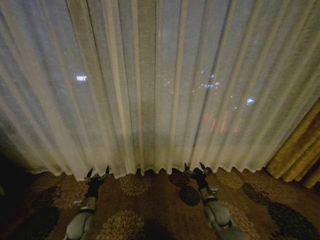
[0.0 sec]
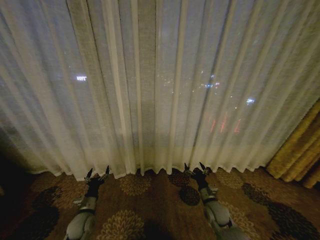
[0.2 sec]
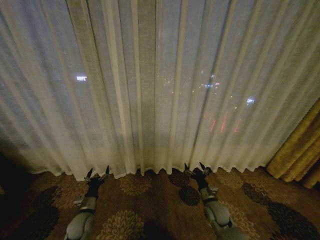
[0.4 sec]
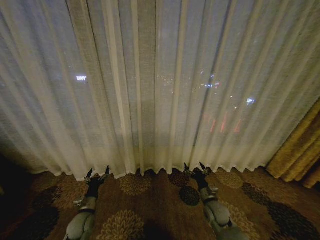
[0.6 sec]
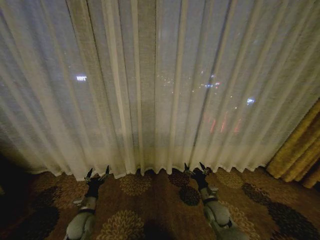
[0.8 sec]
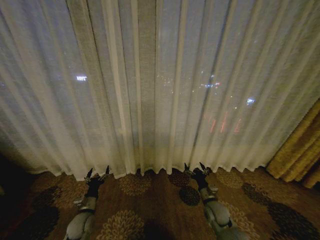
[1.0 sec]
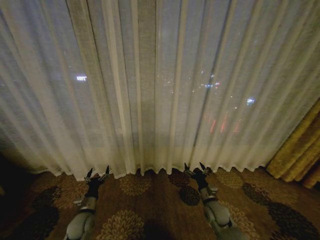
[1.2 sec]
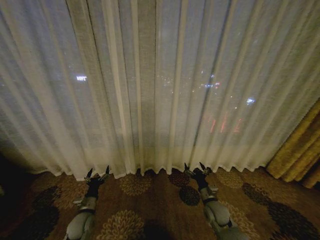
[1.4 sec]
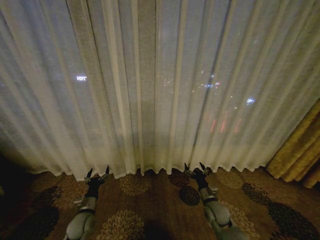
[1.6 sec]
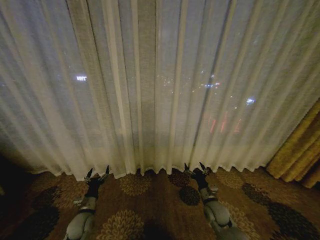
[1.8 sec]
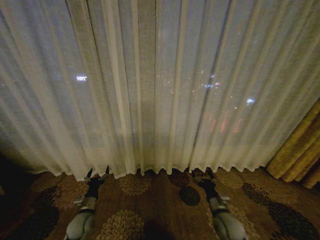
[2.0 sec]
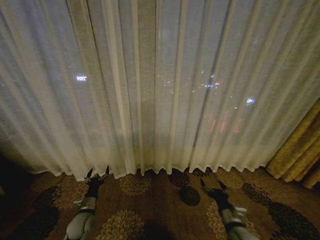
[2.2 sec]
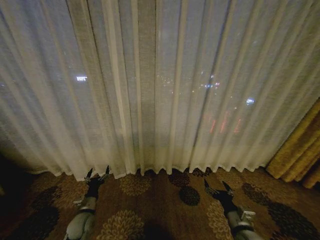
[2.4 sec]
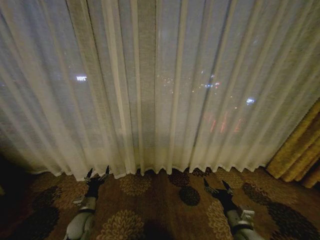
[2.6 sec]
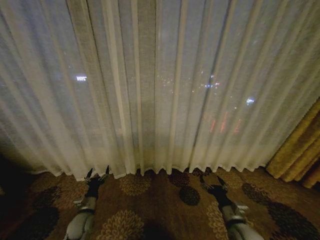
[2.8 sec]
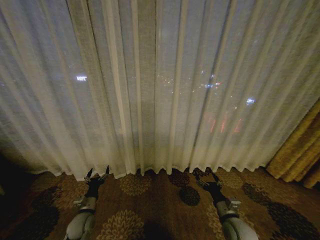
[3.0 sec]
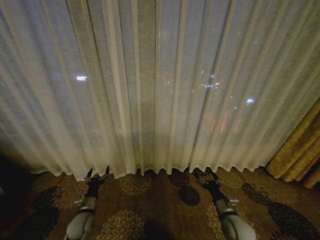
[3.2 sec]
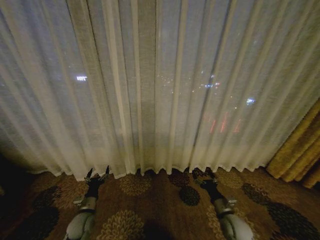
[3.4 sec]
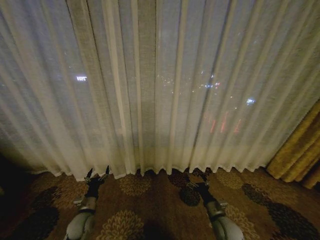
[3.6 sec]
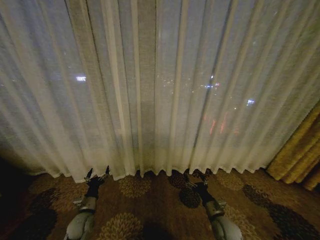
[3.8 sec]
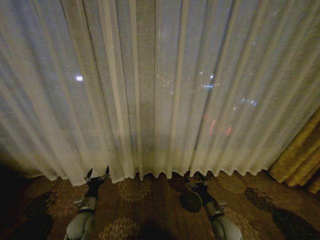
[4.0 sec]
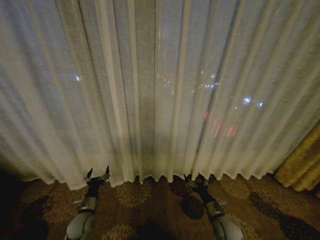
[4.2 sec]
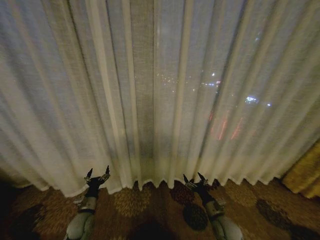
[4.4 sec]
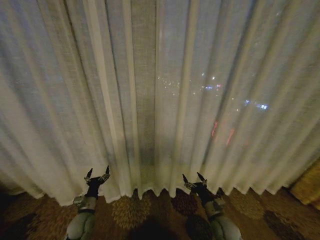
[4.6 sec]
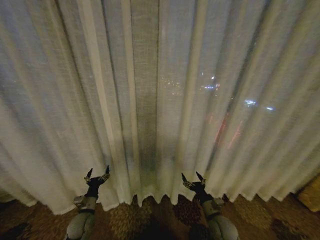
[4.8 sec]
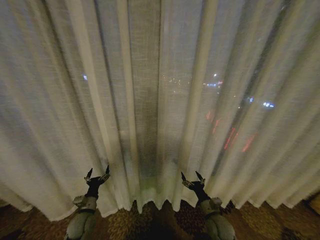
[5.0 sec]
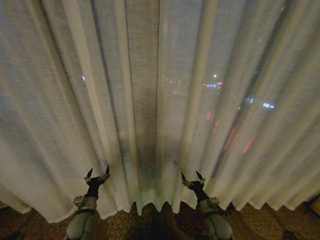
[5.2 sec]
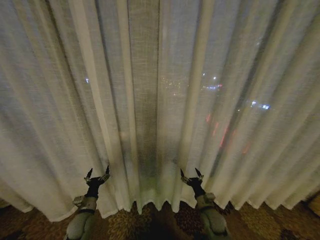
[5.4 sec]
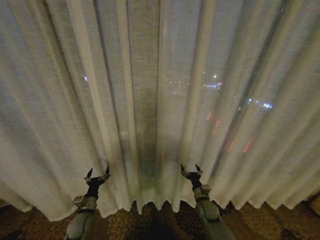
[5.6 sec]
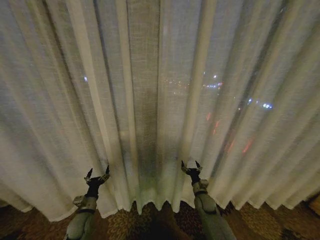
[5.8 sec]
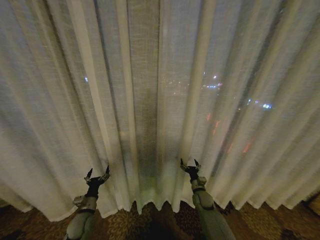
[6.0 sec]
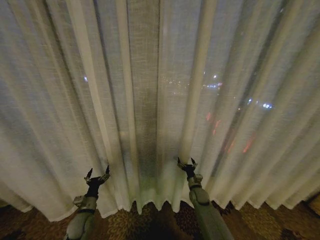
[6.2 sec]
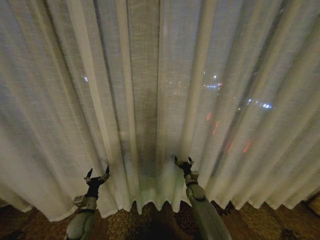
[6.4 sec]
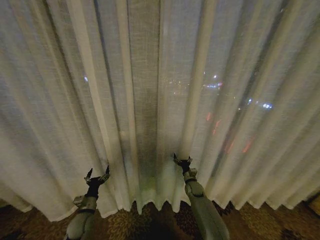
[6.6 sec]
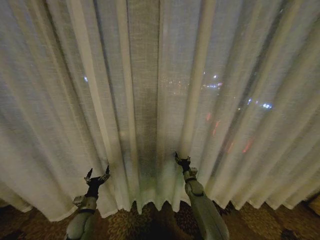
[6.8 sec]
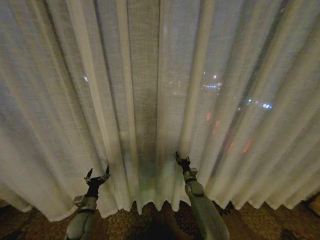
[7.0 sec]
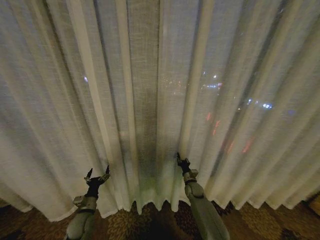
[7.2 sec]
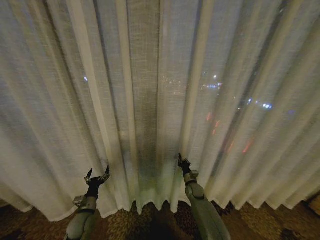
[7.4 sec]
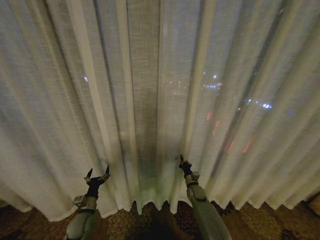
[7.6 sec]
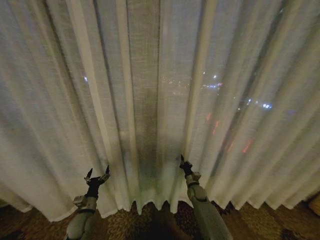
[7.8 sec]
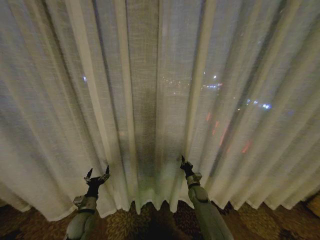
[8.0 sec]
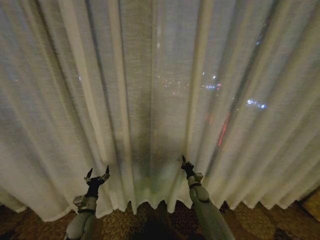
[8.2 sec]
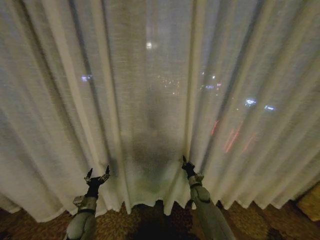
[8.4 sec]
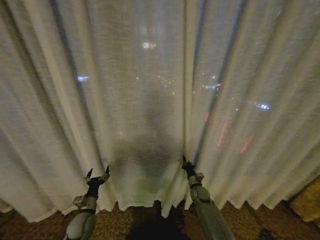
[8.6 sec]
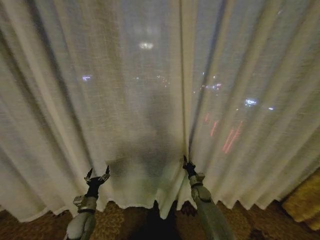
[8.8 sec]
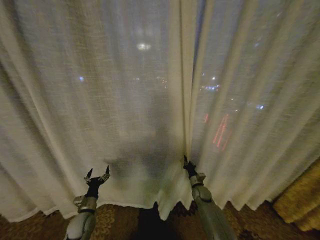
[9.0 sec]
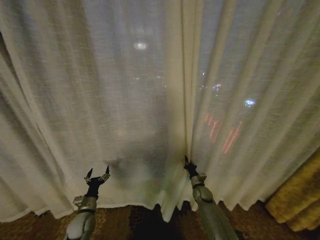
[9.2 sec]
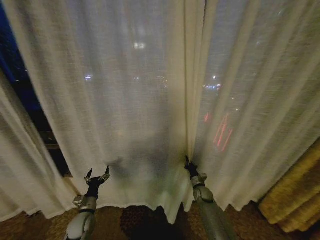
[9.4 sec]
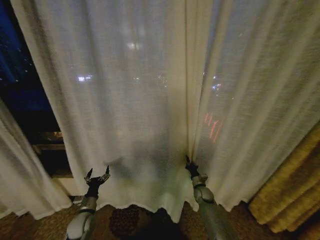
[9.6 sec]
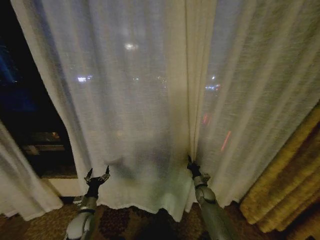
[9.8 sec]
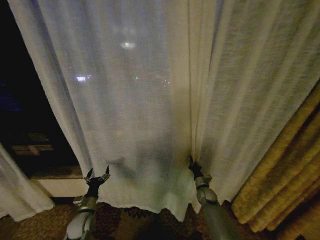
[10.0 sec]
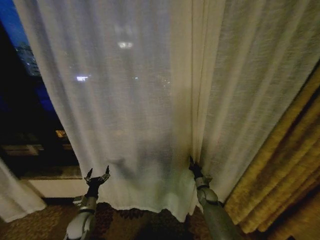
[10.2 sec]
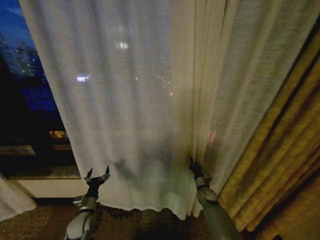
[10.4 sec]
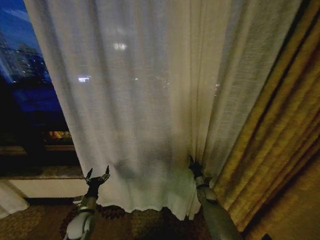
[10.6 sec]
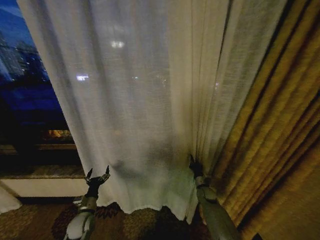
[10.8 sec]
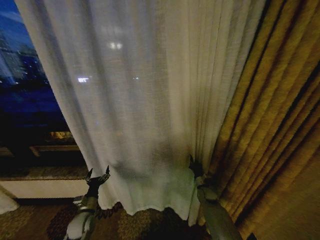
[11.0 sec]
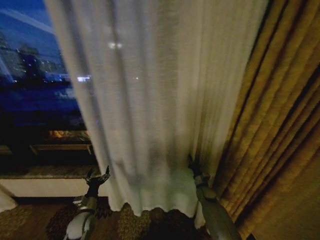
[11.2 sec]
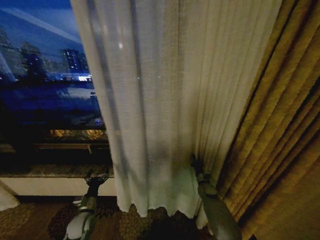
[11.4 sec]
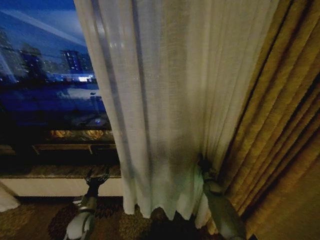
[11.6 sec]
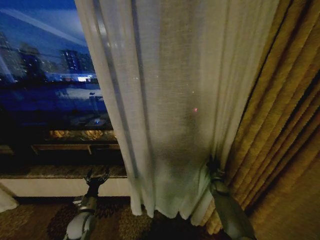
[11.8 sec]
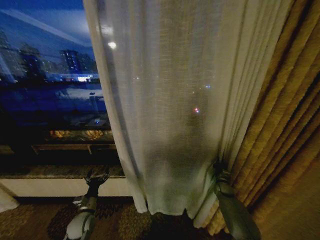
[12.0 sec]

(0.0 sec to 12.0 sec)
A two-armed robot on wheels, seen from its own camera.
Task of the whole recording: Open the curtains by pulling them apart, changing their state from closed to fully open.
1.6 sec - 3.0 sec: The right gripper travels backward by about 10 cm.
3.0 sec - 4.4 sec: The right gripper travels downward by some 5 cm.
4.4 sec - 6.0 sec: The right gripper travels forward by approximately 15 cm.
6.0 sec - 7.6 sec: The right gripper closes up.
7.6 sec - 9.0 sec: The grippers make only small movements.
10.4 sec - 12.0 sec: The right gripper goes approximately 10 cm to the right.

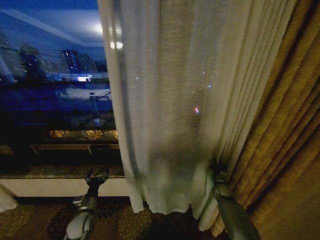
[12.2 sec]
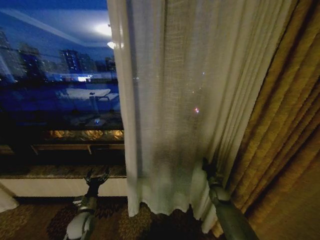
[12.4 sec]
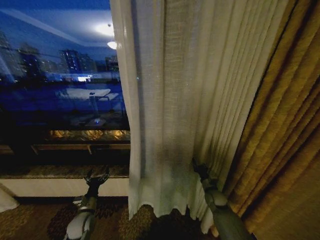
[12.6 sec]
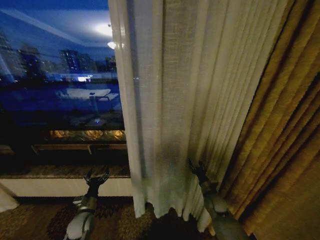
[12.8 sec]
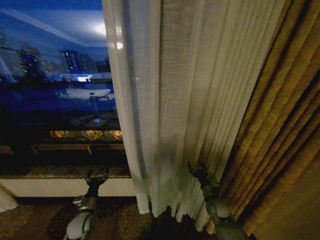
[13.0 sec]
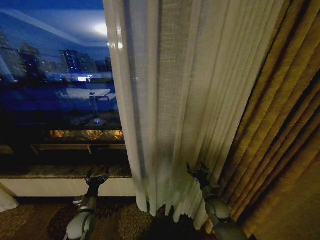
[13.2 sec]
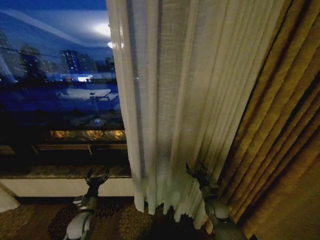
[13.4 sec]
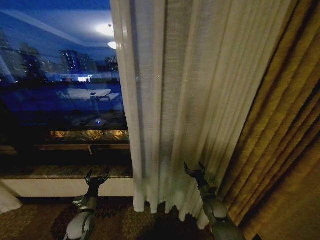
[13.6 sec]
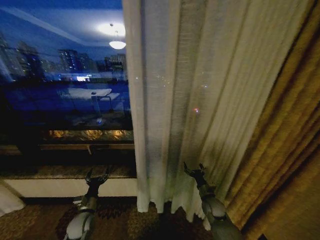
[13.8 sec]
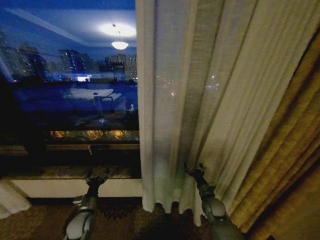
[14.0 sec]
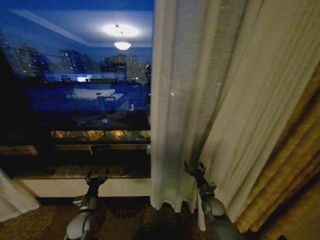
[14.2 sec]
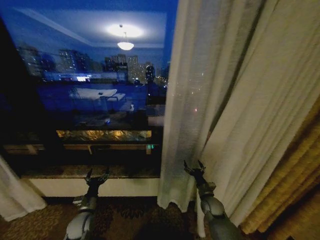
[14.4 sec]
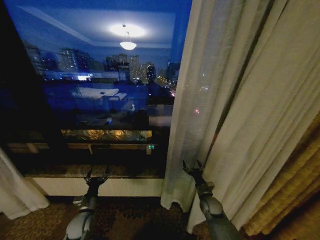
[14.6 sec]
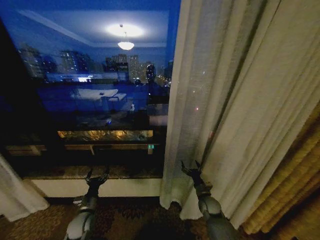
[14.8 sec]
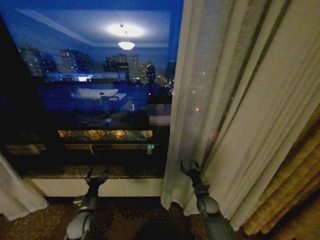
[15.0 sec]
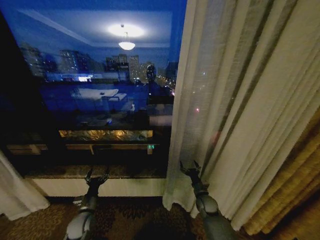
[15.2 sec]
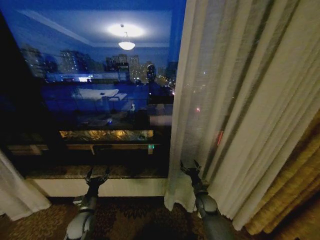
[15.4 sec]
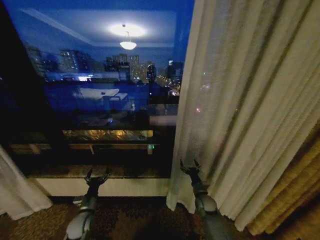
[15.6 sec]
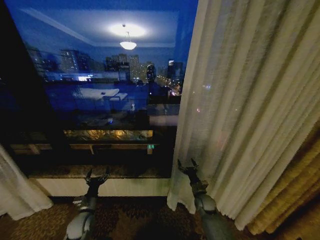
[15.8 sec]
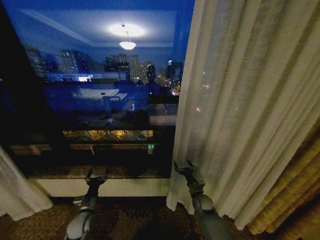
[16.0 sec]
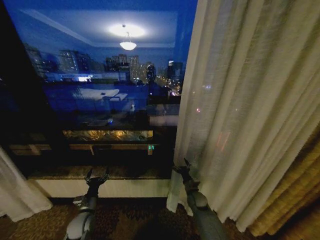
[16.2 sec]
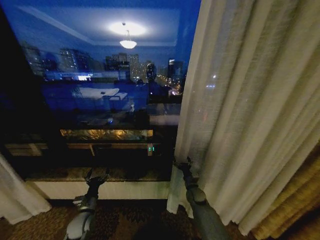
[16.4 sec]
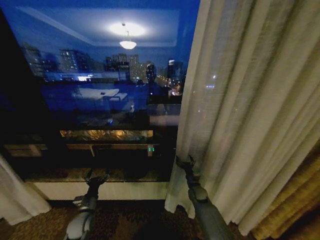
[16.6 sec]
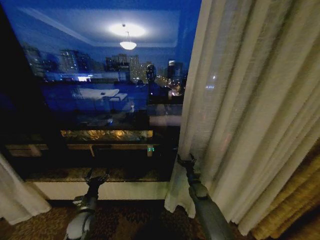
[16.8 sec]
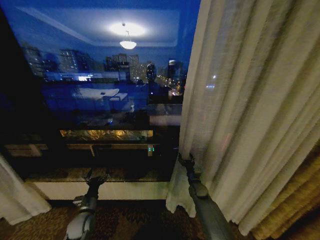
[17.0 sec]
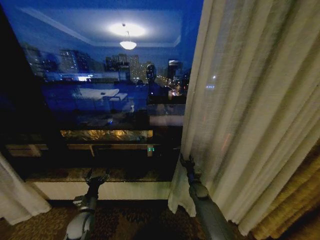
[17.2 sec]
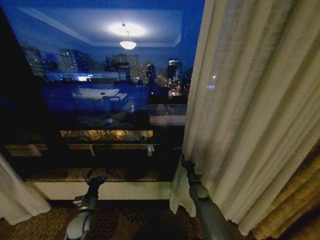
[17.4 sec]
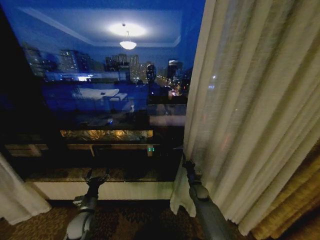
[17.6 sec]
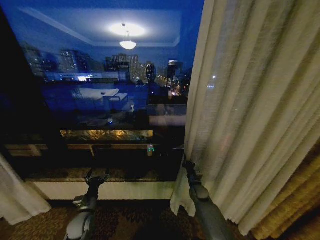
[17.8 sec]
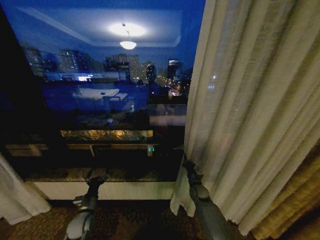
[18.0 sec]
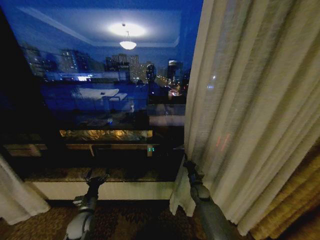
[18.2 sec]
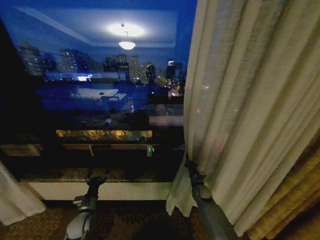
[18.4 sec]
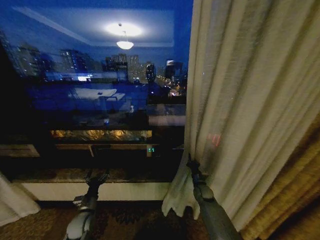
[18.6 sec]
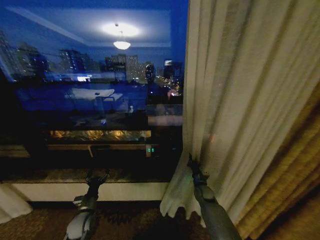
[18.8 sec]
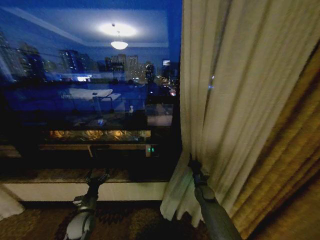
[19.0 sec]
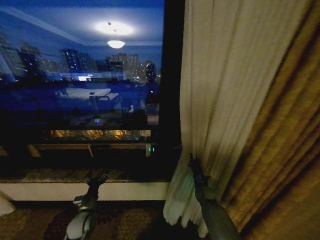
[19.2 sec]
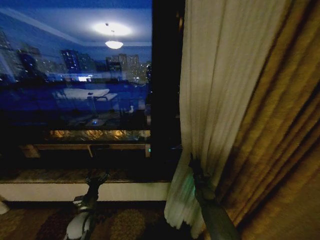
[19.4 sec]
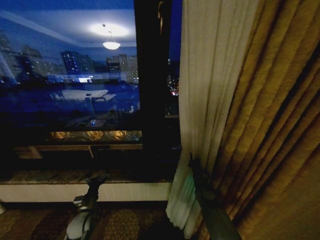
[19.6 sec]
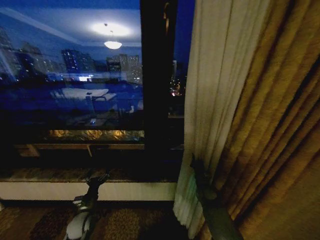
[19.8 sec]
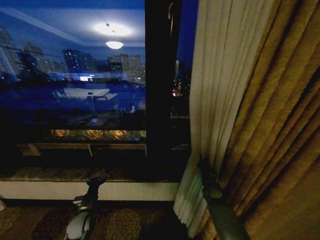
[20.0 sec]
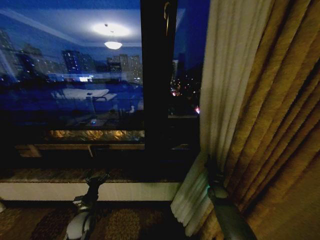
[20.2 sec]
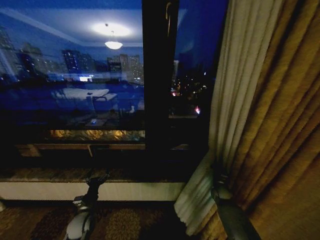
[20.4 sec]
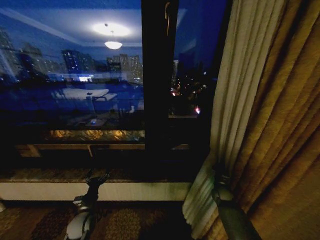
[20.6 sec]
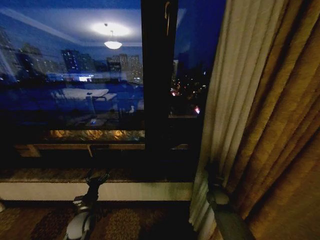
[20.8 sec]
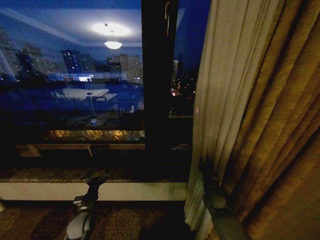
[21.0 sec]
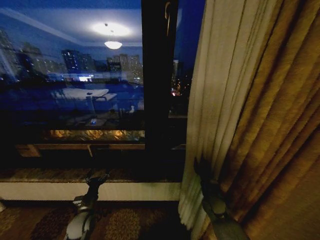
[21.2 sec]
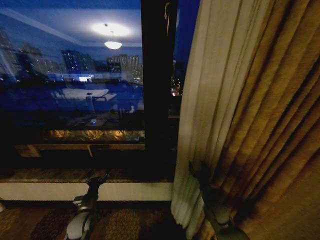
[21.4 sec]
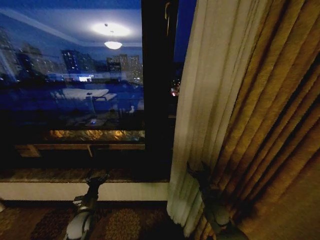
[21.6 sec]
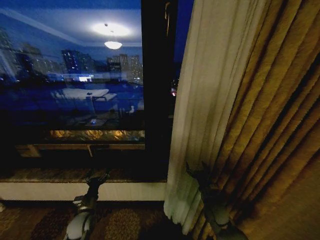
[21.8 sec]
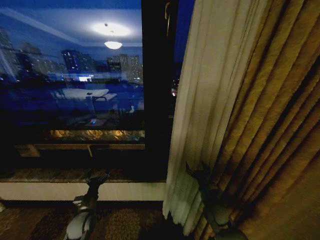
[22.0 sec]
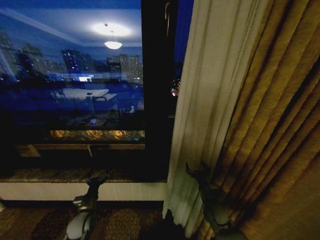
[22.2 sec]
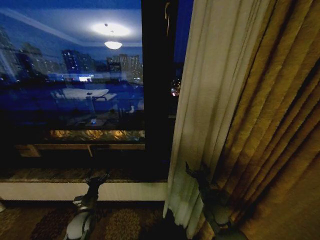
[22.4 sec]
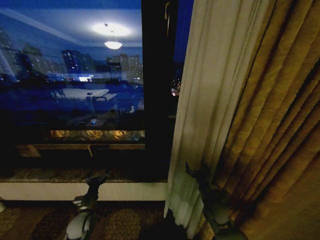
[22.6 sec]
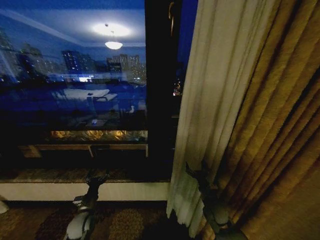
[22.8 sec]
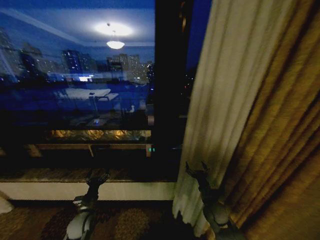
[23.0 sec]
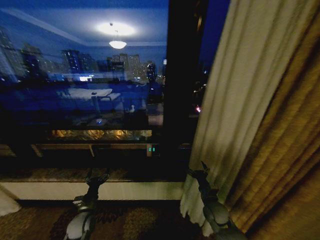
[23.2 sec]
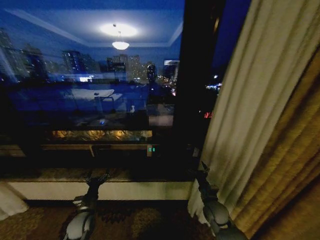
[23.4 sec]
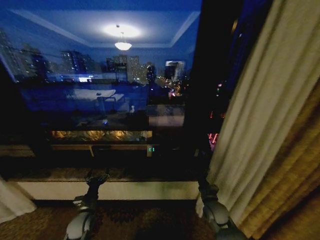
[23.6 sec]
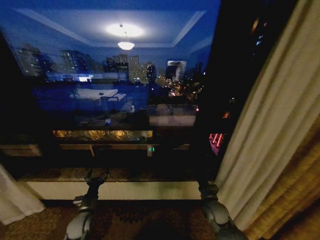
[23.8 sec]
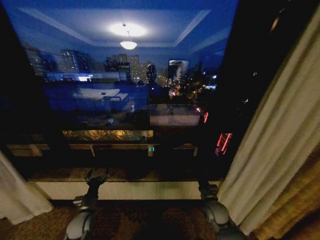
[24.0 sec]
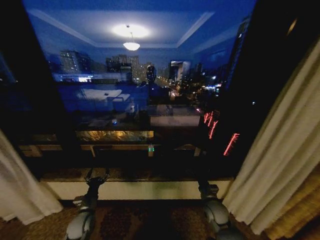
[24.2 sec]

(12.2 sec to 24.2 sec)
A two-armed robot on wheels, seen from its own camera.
Task of the whole recording: Open the curtains by pulling them apart, changing their state from closed to fully open.
12.2 sec - 13.8 sec: The right gripper shifts about 15 cm to the left and backward, and opens its fingers.
15.2 sec - 16.6 sec: The right gripper shifts approximately 5 cm forward.
16.6 sec - 18.2 sec: The right gripper closes.
19.8 sec - 21.2 sec: The right gripper is displaced backward by about 5 cm, goes to the right and returns, about 10 cm each way, and opens.
21.2 sec - 22.6 sec: The right gripper opens its fingers.
